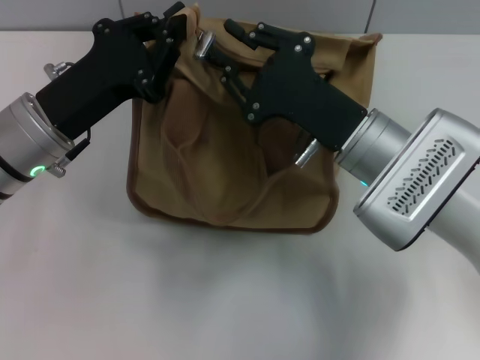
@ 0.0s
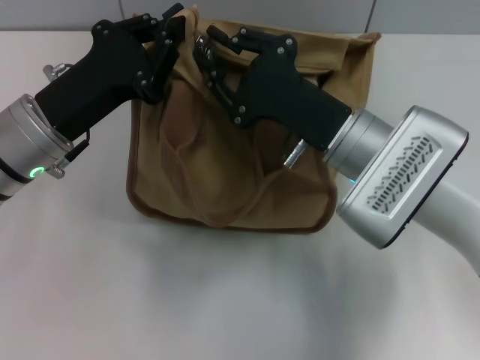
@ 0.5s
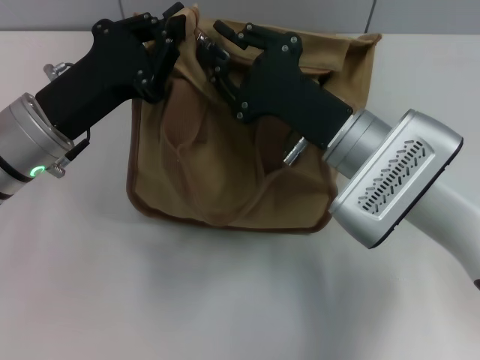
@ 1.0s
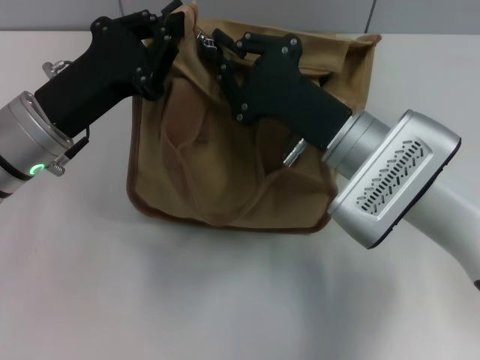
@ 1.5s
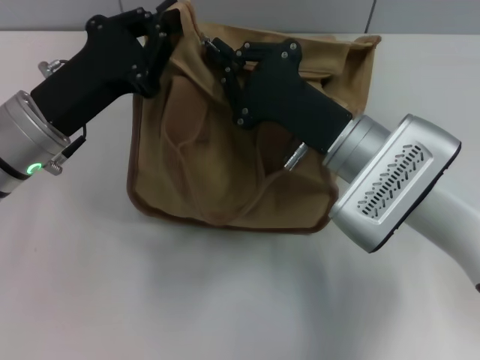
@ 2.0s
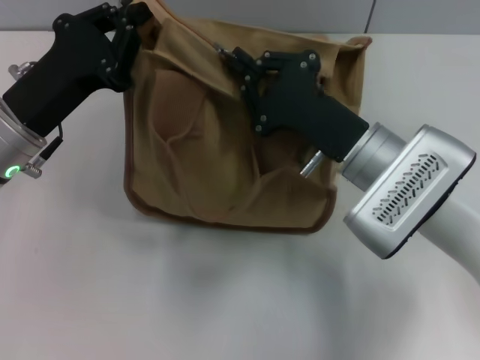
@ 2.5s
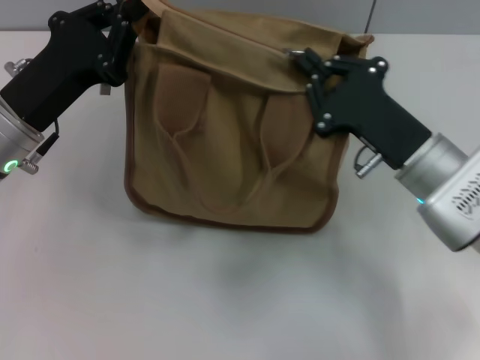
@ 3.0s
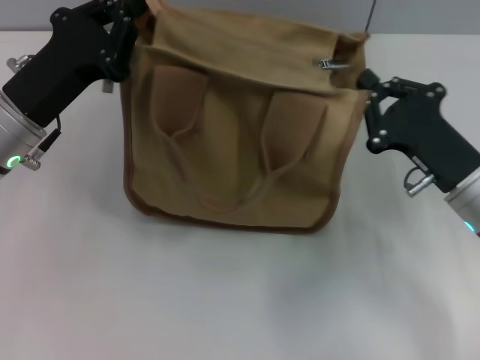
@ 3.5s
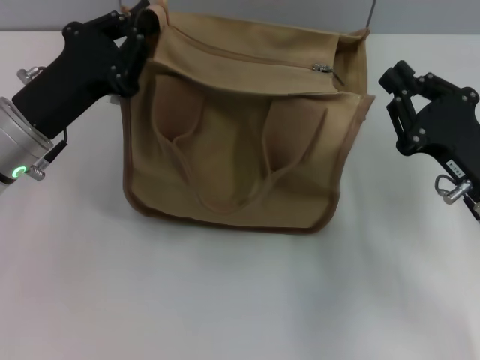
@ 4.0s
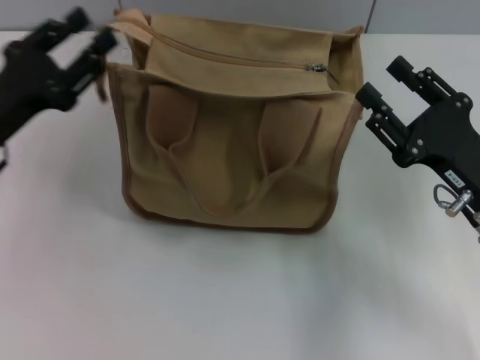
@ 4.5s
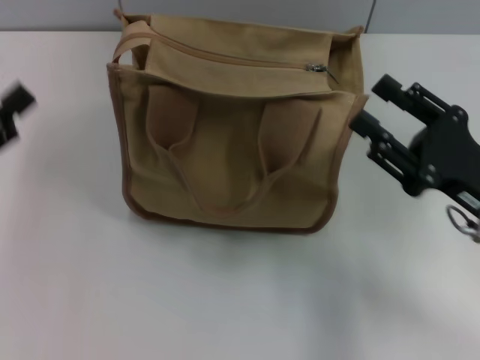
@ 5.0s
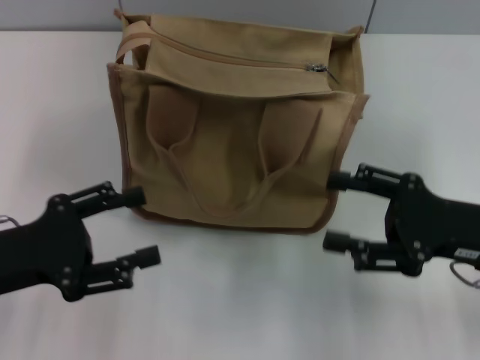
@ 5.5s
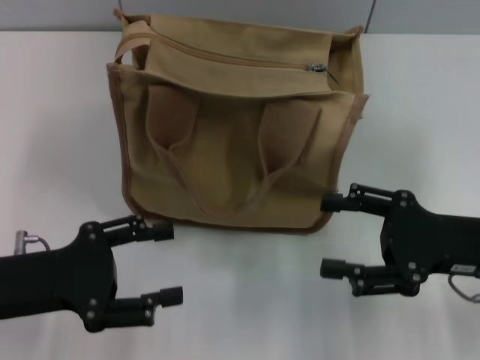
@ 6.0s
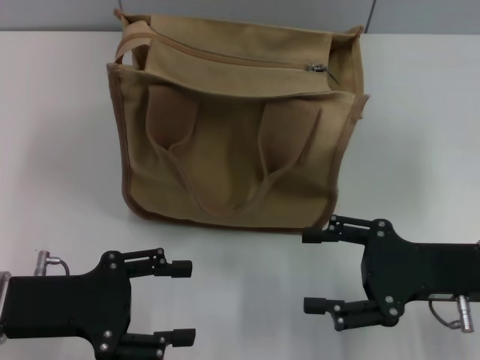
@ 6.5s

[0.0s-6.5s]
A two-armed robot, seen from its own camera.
Step, 0.0s to 3.0s: Pull up the zipper with your right hand.
Step, 4.0s to 4.5s: Grab the zipper with your left hand.
0.0s to 2.0s: The grippers make only small movements.
2.0s to 4.5s: The left gripper heads to the left, covering some 5 cm. The right gripper goes some 15 cm to the right and backward, and opens its fingers.
4.5s to 6.5s: The left gripper travels backward by roughly 10 cm, and opens up. Meanwhile the right gripper opens its fingers.
